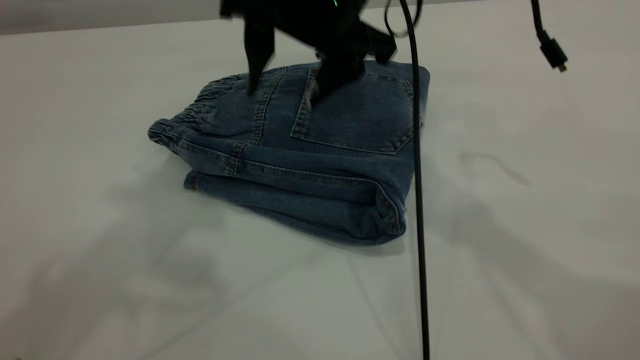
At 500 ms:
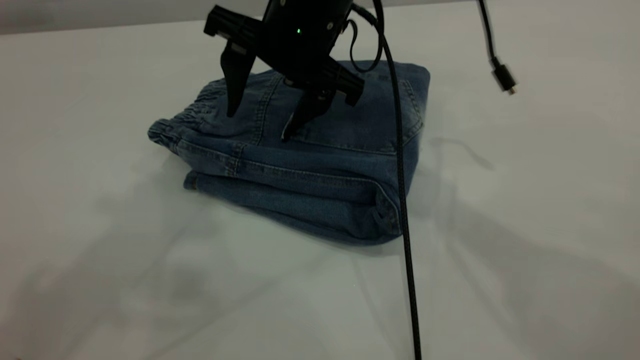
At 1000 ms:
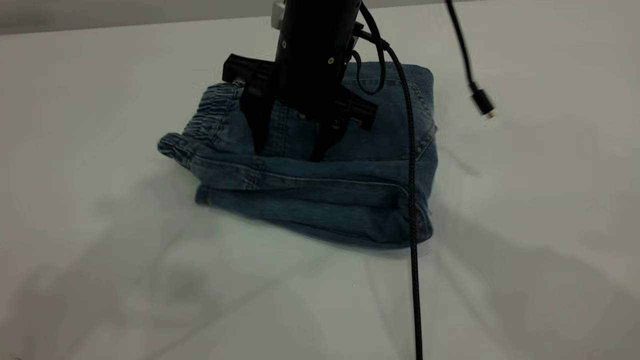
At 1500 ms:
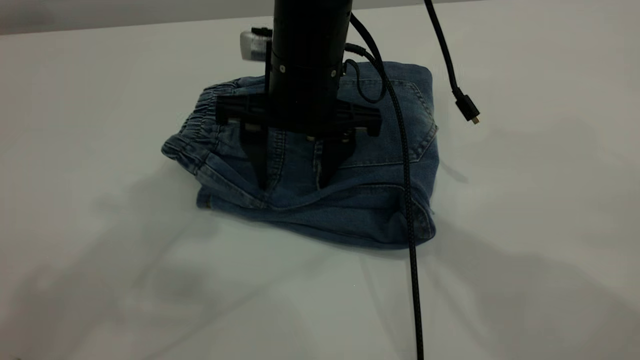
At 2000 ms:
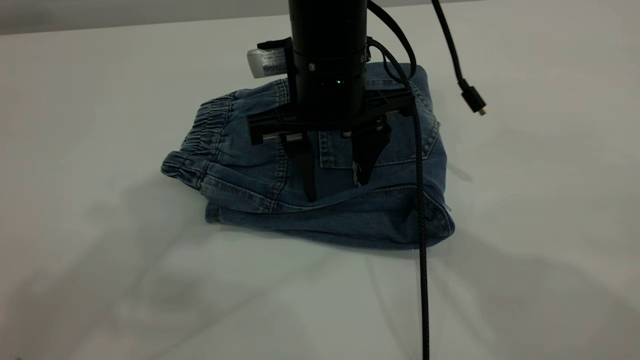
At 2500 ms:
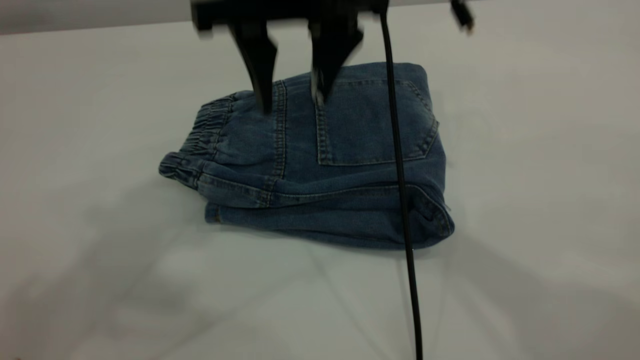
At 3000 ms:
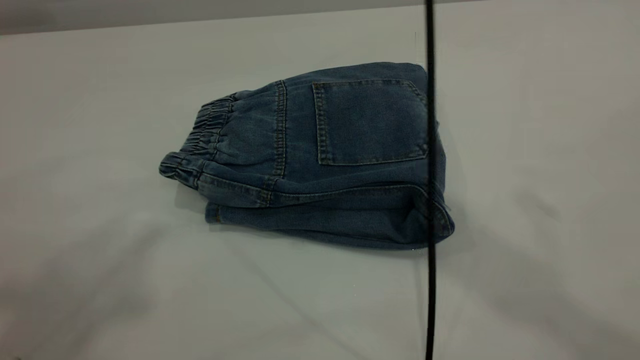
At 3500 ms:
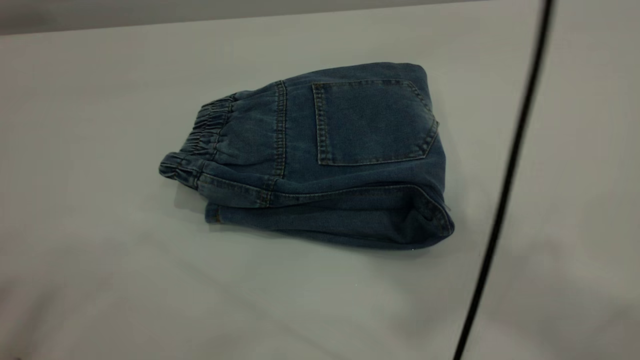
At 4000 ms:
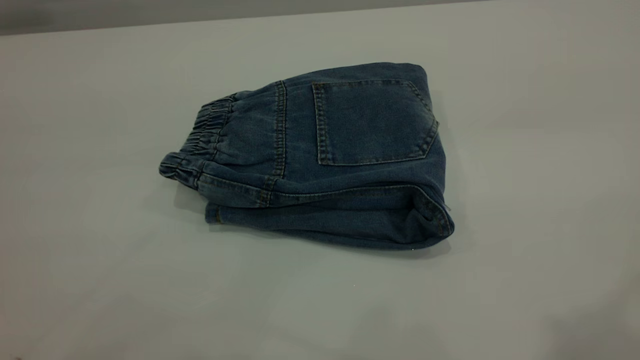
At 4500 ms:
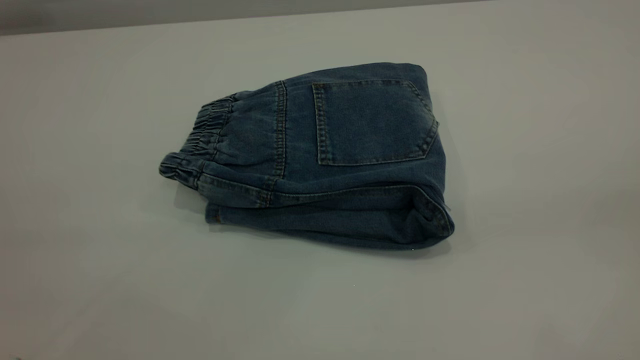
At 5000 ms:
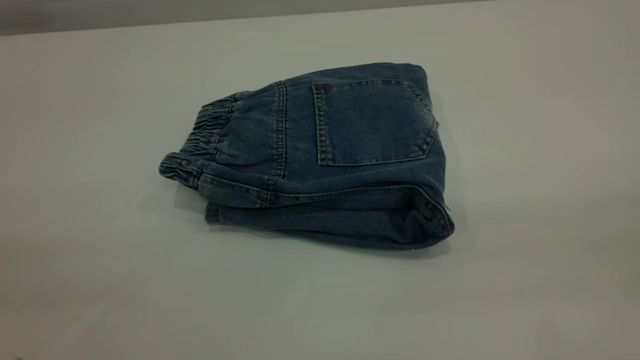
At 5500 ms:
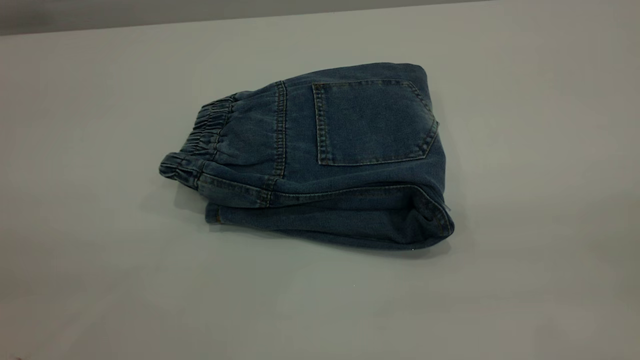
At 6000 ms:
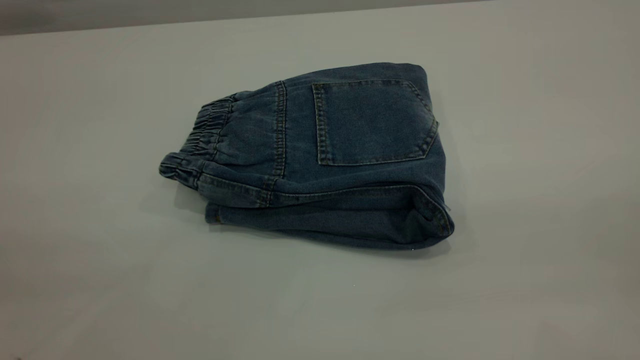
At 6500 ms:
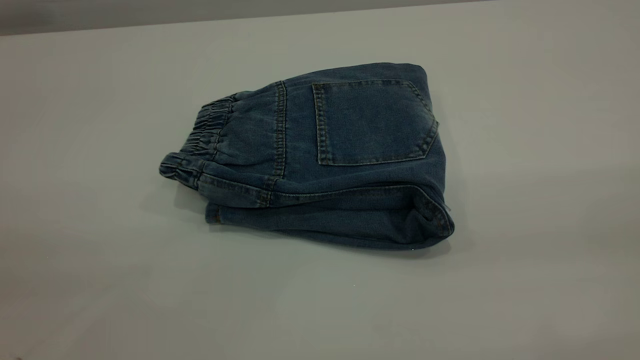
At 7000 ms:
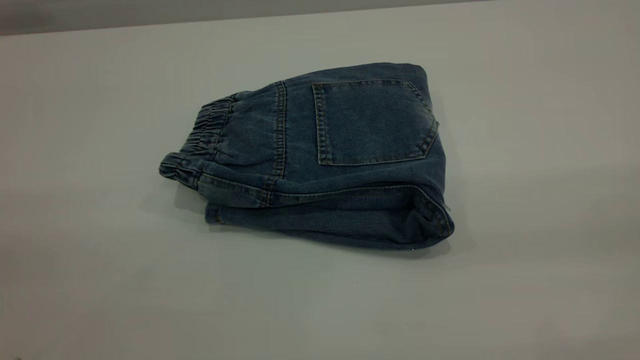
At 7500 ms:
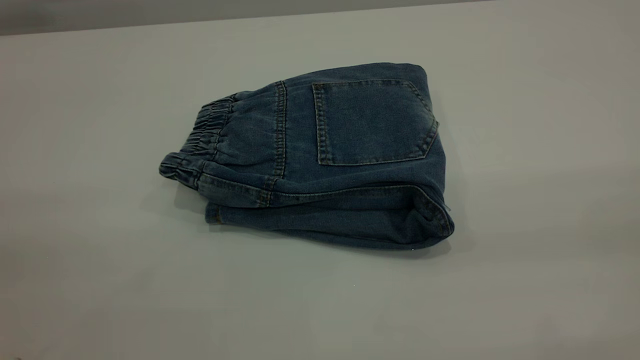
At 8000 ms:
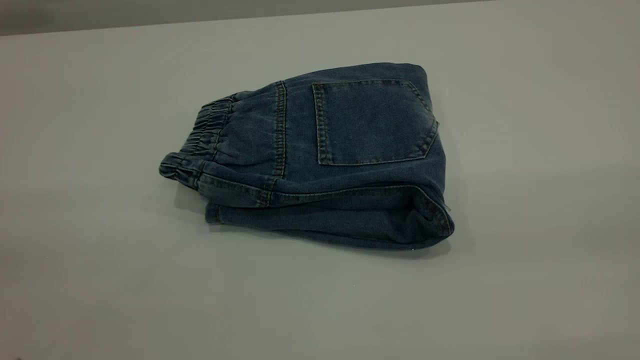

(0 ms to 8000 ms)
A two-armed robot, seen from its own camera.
0 ms - 2000 ms: The right gripper heads downward, covering some 5 cm.
2000 ms - 4000 ms: The right gripper heads upward, backward and to the right, covering about 40 cm, while the left gripper travels backward and to the left by roughly 20 cm.
